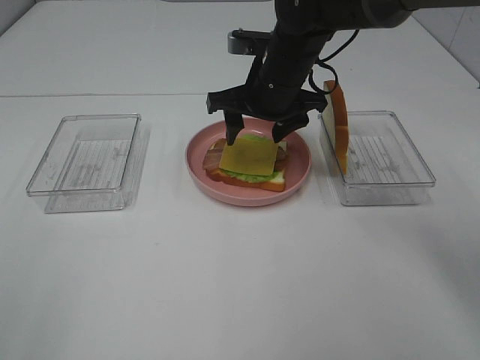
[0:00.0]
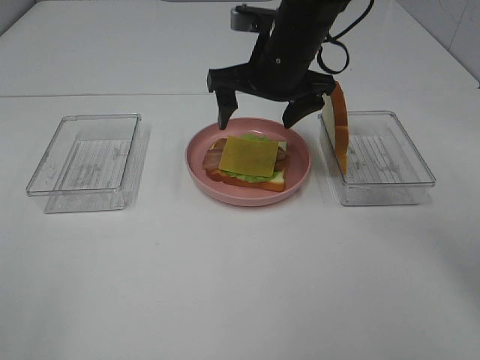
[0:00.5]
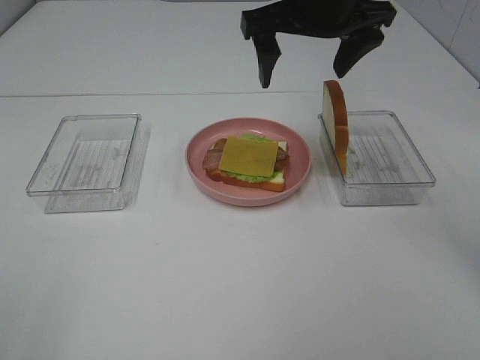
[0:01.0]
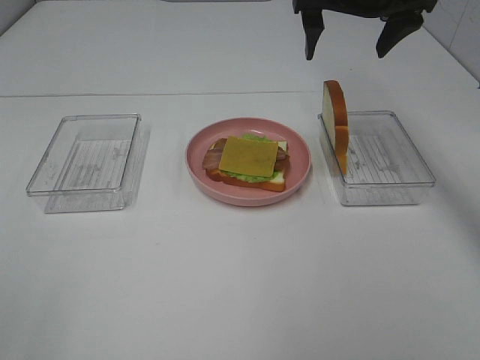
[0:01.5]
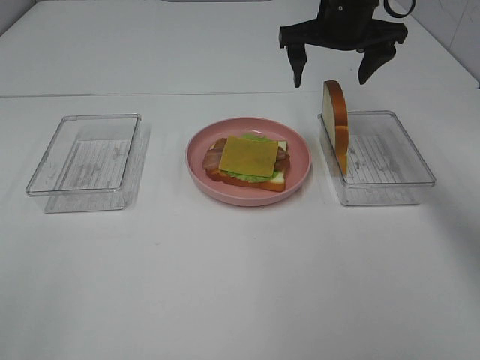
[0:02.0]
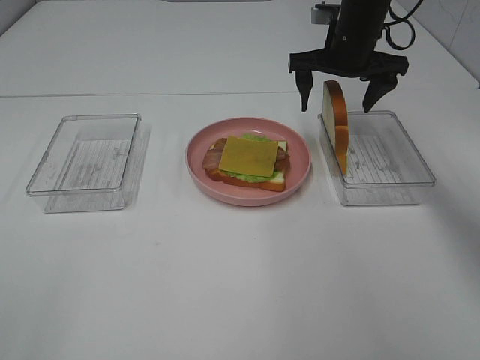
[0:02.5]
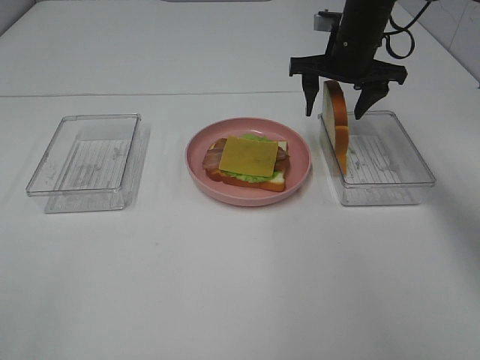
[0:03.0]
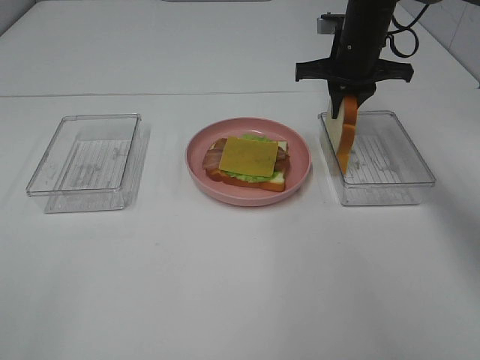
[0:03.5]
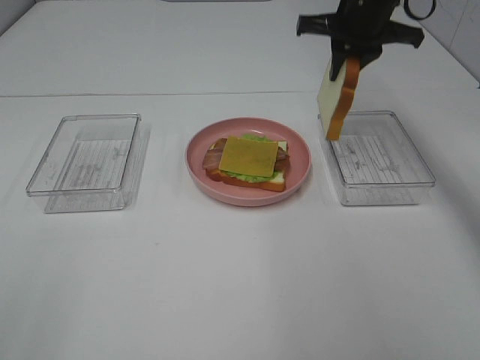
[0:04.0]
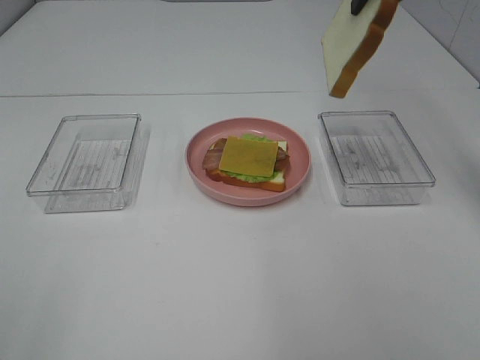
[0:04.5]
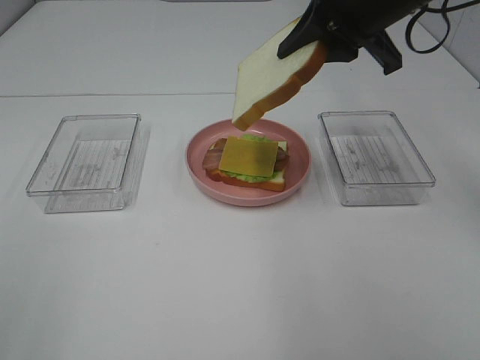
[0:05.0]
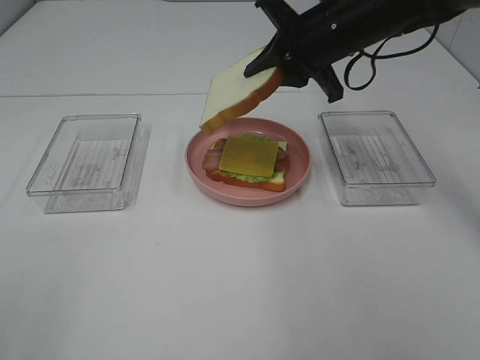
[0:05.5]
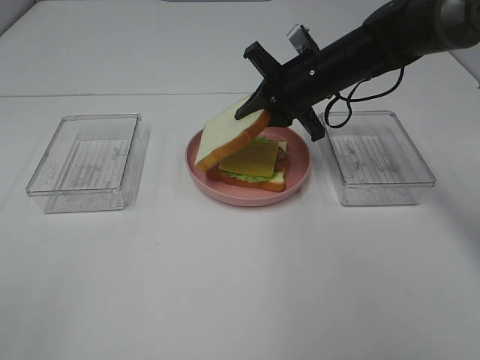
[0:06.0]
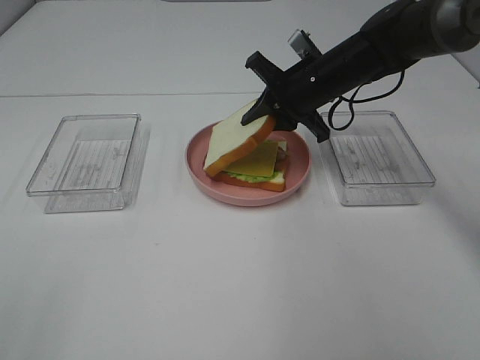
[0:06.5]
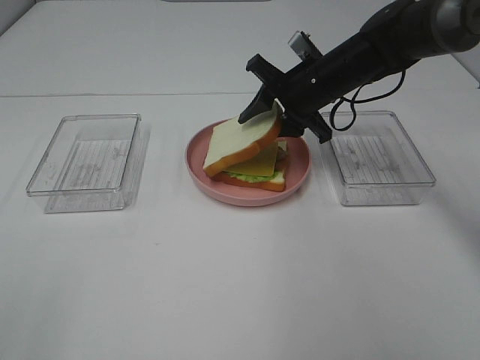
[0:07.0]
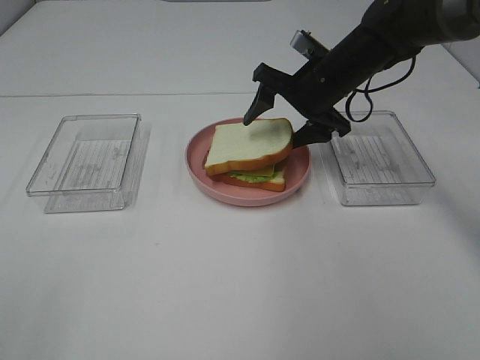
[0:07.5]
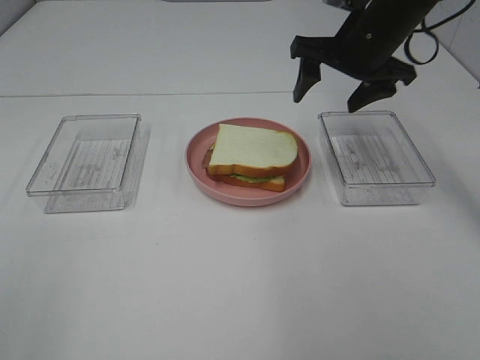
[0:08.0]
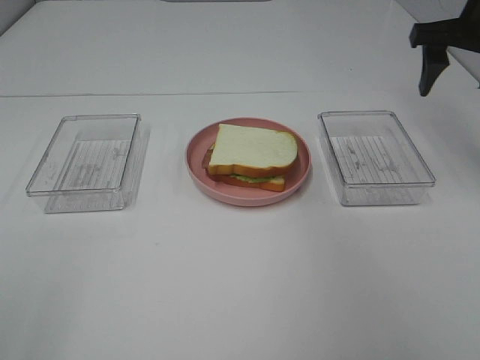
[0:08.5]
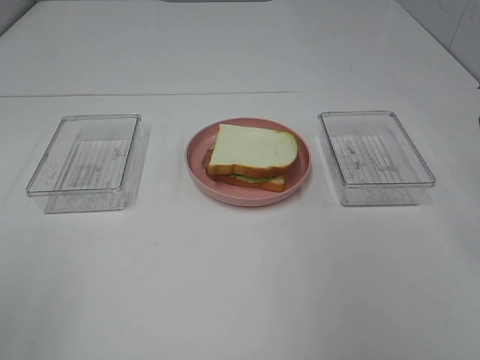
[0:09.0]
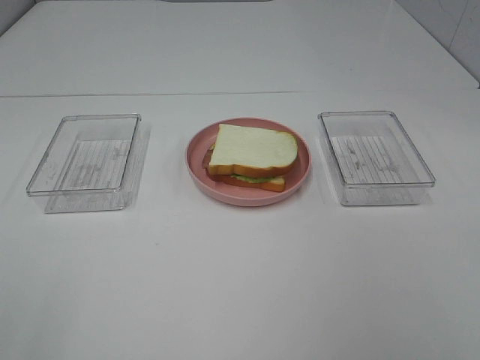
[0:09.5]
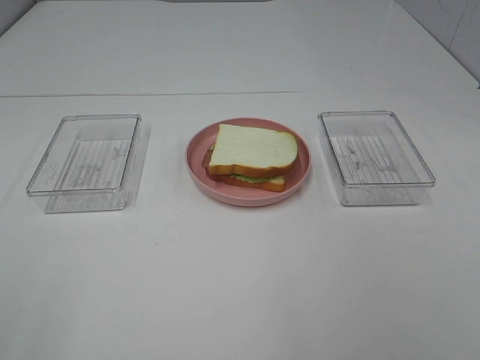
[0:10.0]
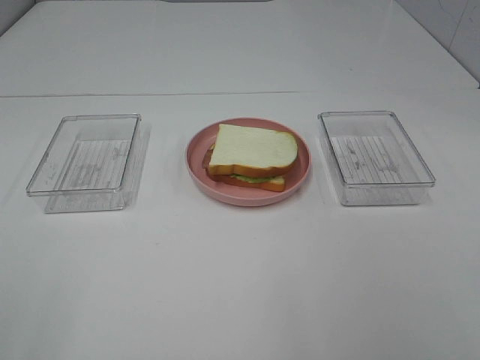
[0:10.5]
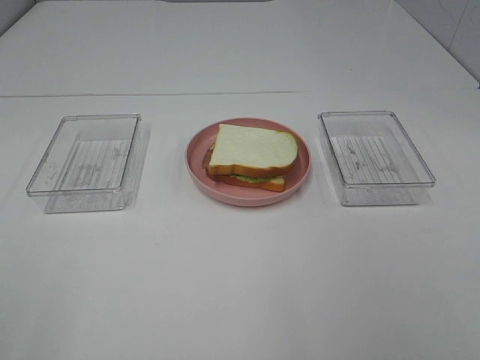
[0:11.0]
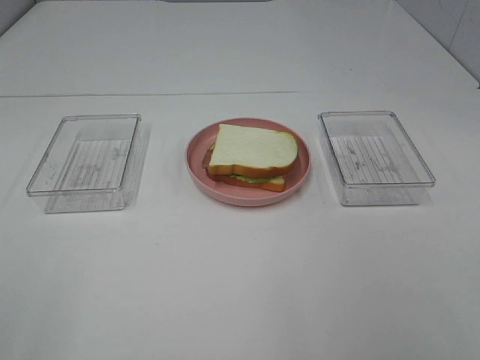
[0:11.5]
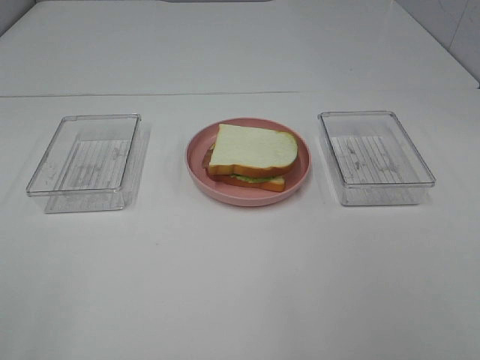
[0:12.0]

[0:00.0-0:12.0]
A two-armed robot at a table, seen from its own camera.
Task of the whole recording: Make sandwiches.
Step, 0:00.5 to 0:03.5: Right hand:grab the bread slice.
Step, 0:04.0 to 0:07.5: Right hand:place bacon on bacon.
0:00.0 to 0:02.0: The right gripper is displaced to the right, upward and forward by about 15 cm.
0:02.0 to 0:04.0: The right gripper moves about 5 cm downward and comes back, and closes.
0:04.0 to 0:06.0: The right gripper travels downward by some 10 cm.
0:06.0 to 0:08.0: The right gripper goes some 10 cm upward, and opens its fingers.
0:08.0 to 0:10.0: The right gripper goes some 40 cm backward.

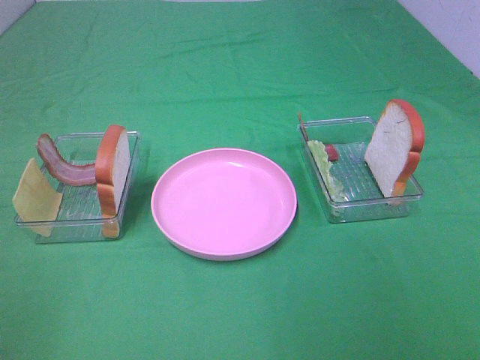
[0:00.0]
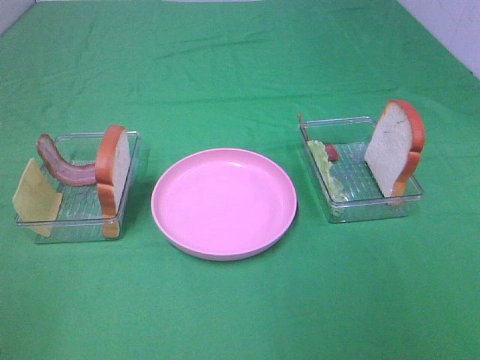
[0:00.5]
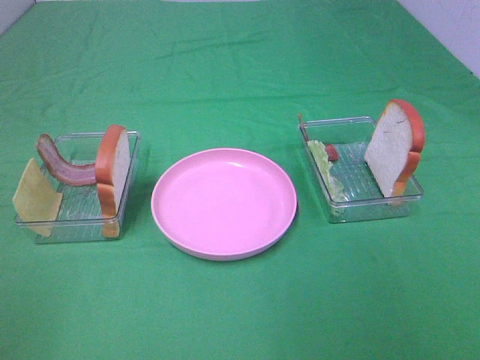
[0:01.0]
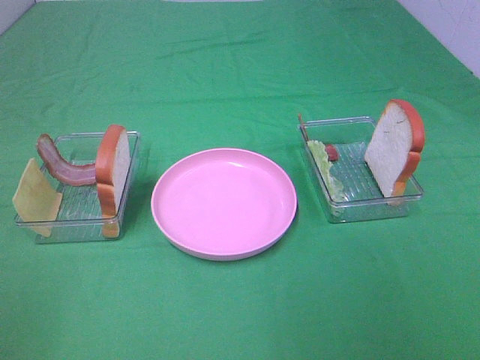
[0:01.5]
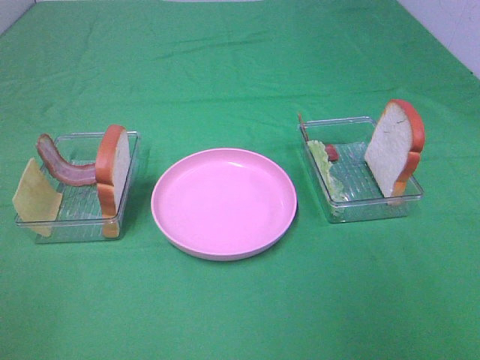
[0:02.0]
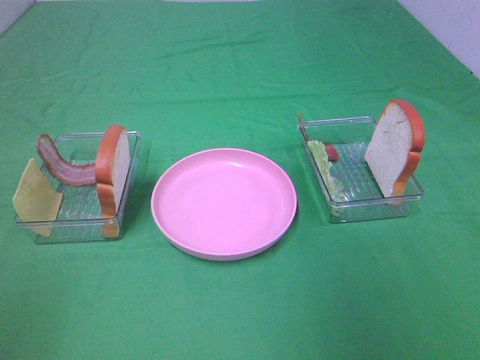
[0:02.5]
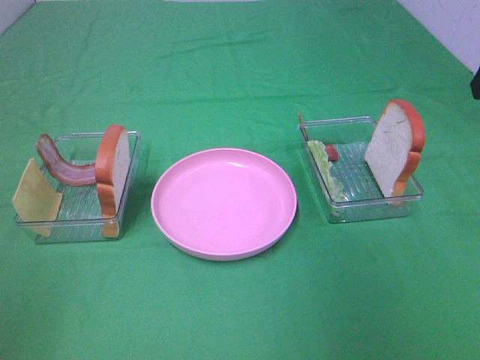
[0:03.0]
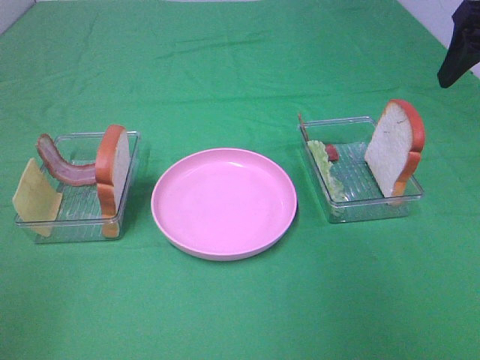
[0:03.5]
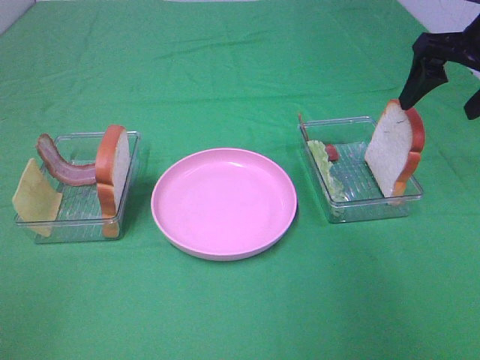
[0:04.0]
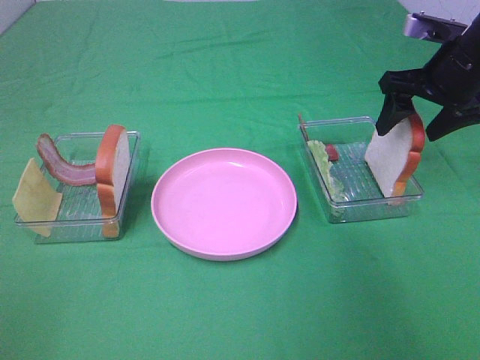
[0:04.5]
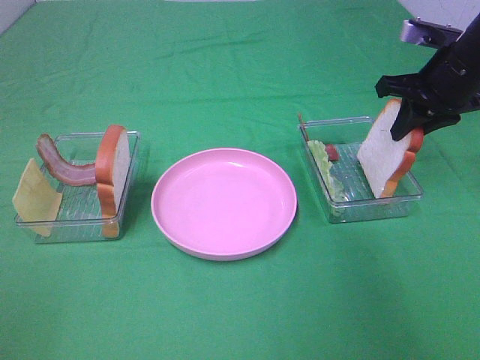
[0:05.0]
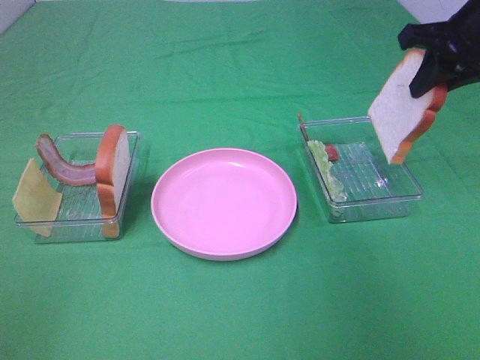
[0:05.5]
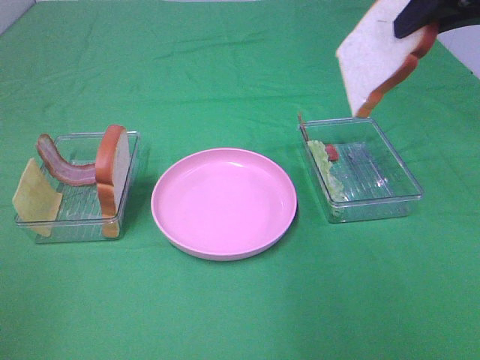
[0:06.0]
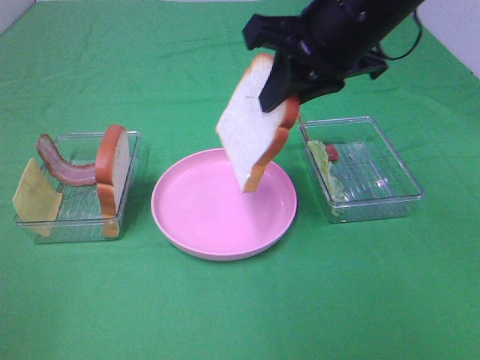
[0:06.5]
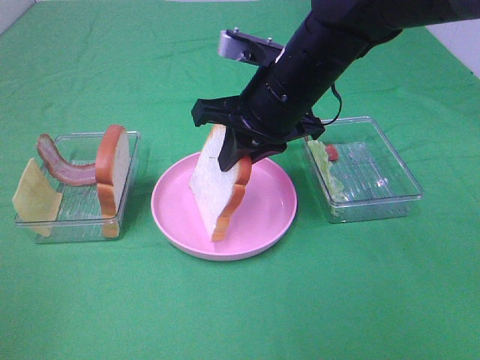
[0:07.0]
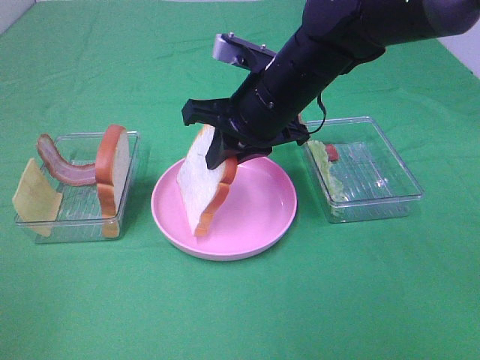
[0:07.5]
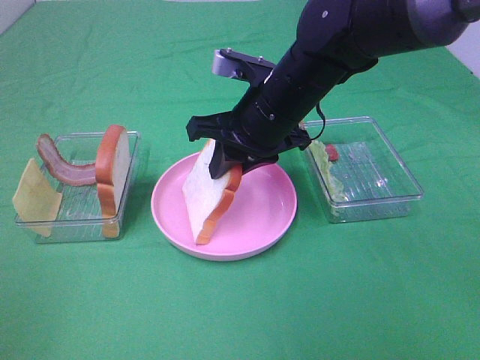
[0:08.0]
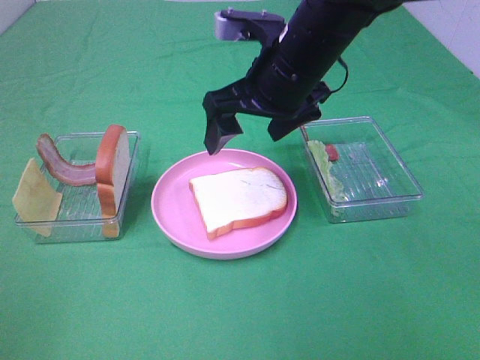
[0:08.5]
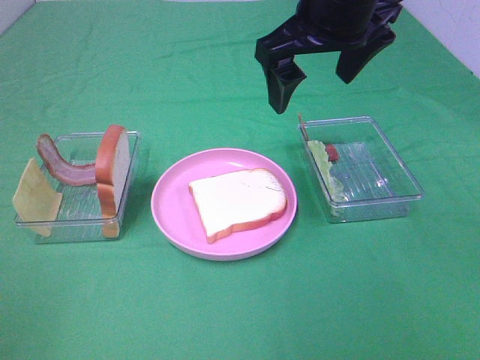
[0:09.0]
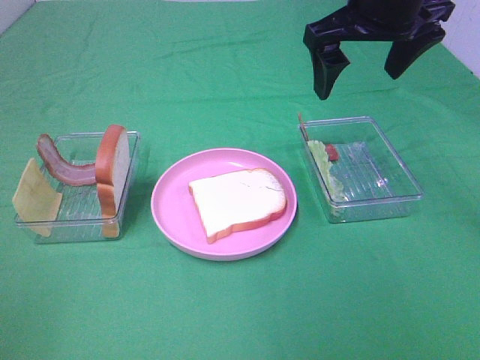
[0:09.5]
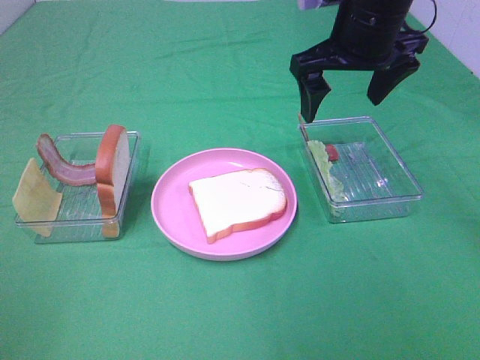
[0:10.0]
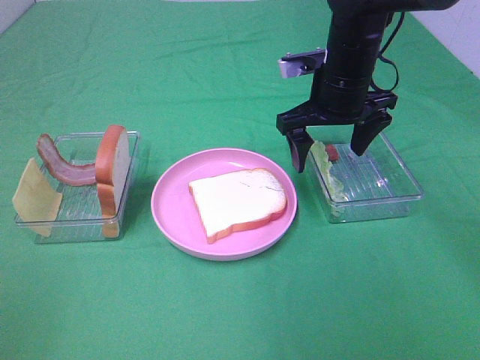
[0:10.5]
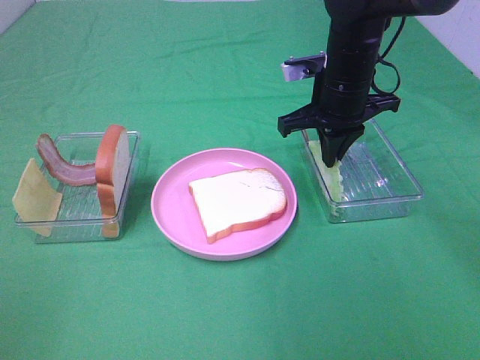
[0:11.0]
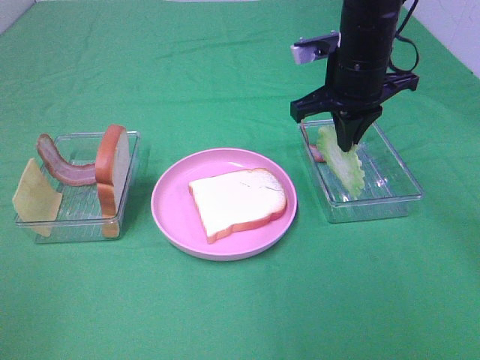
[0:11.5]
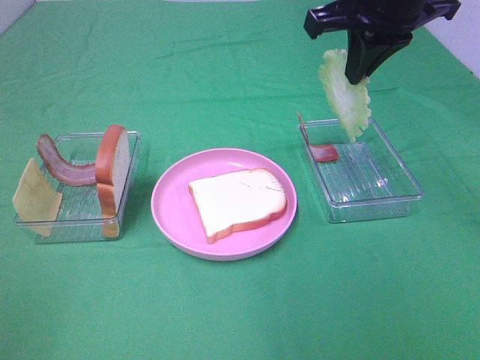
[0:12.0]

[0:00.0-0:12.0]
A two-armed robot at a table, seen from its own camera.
Task of the whole recording: Make sandwiches.
Step, 0:00.0 to 0:05.0: Right hand:grab the bread slice.
Step, 0:05.5 to 0:08.5: Right hand:place the bread slice on the plate.
Step, 0:09.0 to 0:11.0: Right hand:grab the lettuce slice.
0:02.0 to 0:04.0: The right gripper is displaced forward by about 30 cm.
0:04.0 to 0:06.0: The right gripper moves upward and to the left, roughly 10 cm, and closes.
0:06.0 to 0:08.0: The right gripper travels to the left and downward by approximately 25 cm.
0:08.0 to 0:10.0: The right gripper moves to the right and upward, roughly 10 cm, and opens.
0:10.0 to 0:12.0: The right gripper goes about 5 cm upward, and closes.

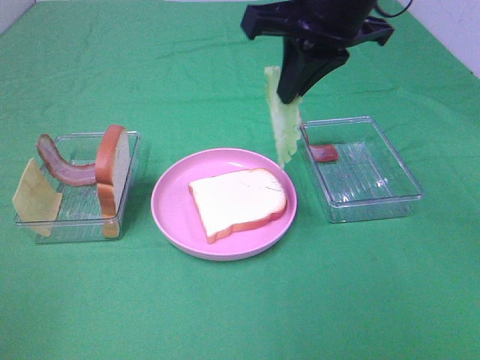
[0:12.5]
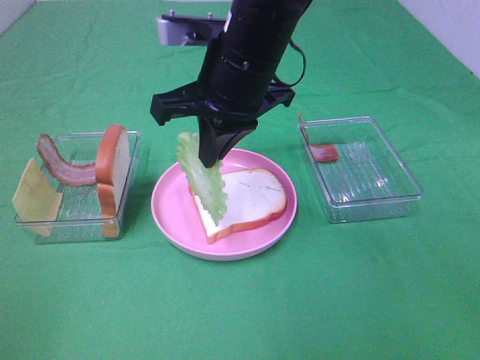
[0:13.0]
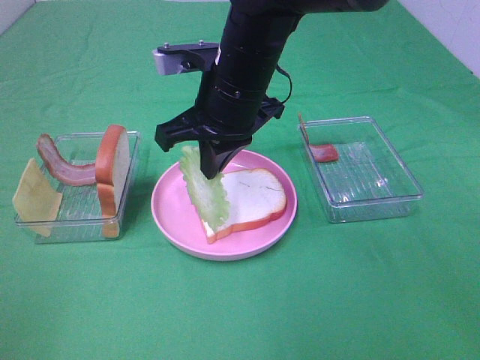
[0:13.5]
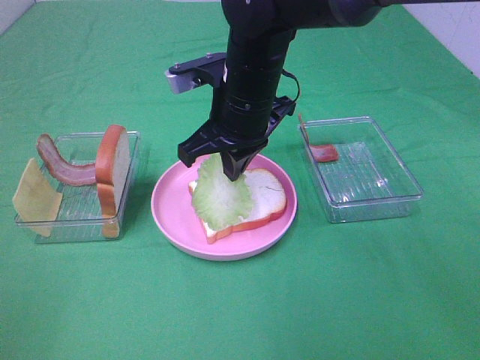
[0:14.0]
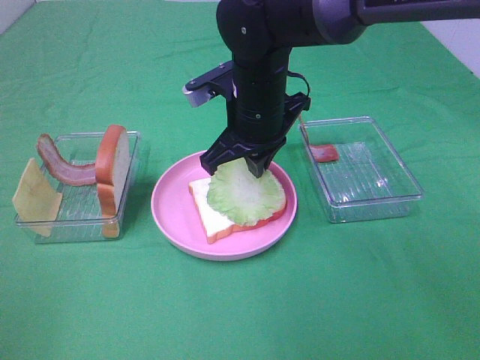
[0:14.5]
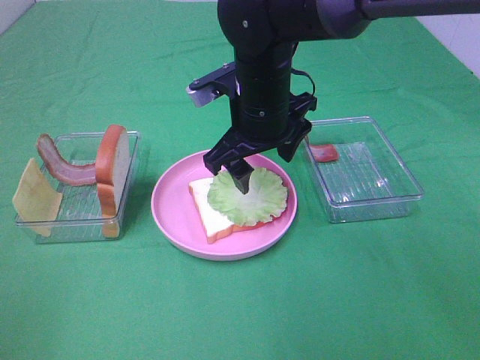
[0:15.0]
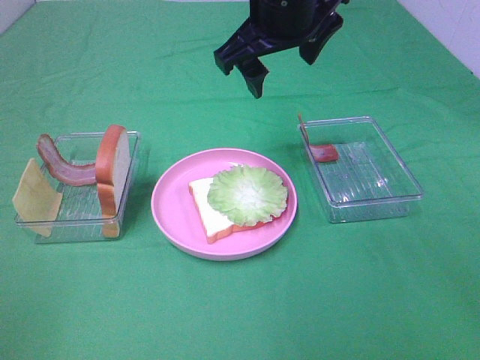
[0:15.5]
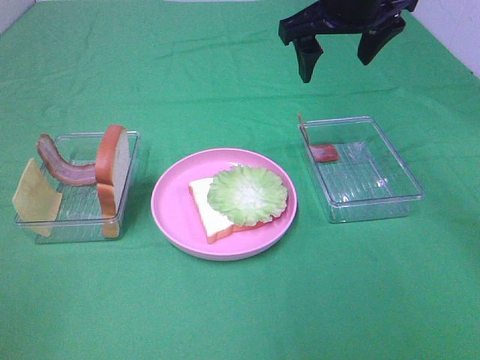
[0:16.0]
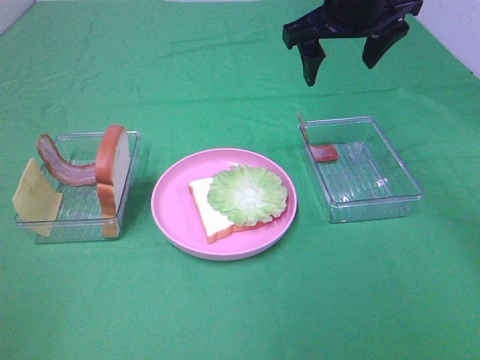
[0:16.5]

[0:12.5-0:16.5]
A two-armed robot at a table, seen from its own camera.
Task of the whole recording: Make sandwiches.
Step, 0:12.5 to 0:14.5: Right hand:place the lettuce slice on the bread slice.
0:12.5 to 0:14.5: The right gripper goes roughly 15 cm downward and to the left.
0:14.5 to 0:16.5: The right gripper goes roughly 15 cm upward, to the right and forward, and opens its fingers.
